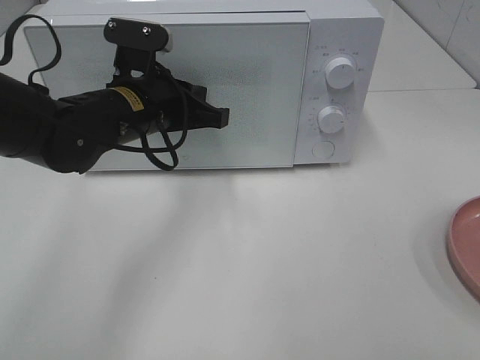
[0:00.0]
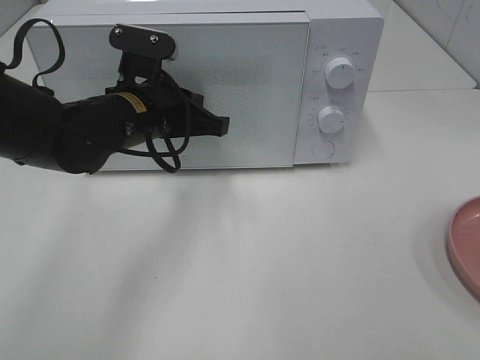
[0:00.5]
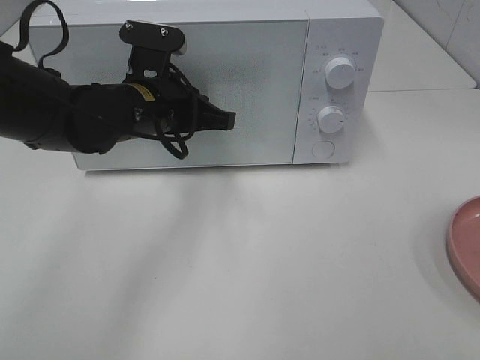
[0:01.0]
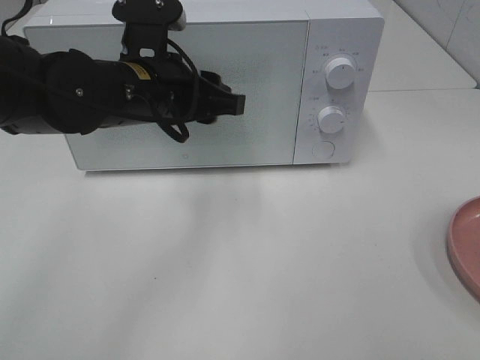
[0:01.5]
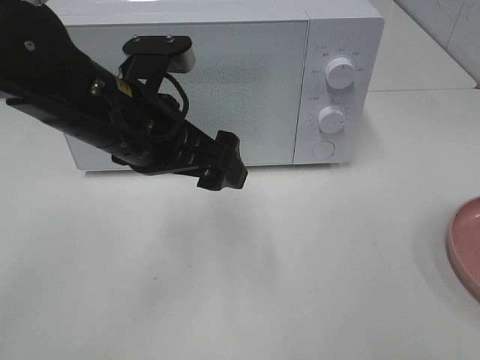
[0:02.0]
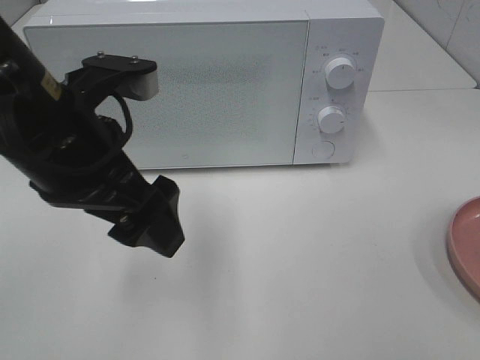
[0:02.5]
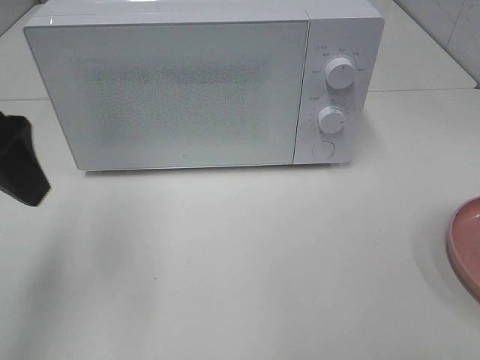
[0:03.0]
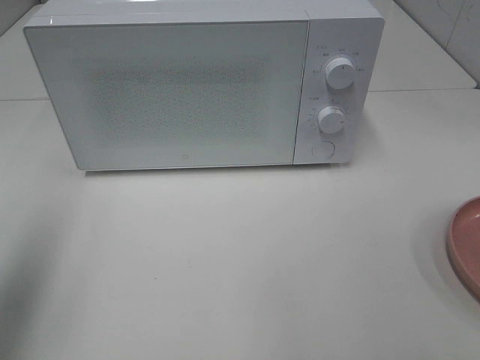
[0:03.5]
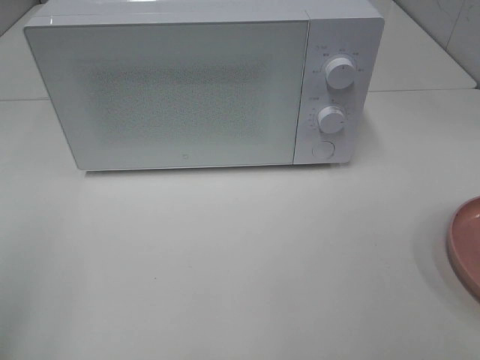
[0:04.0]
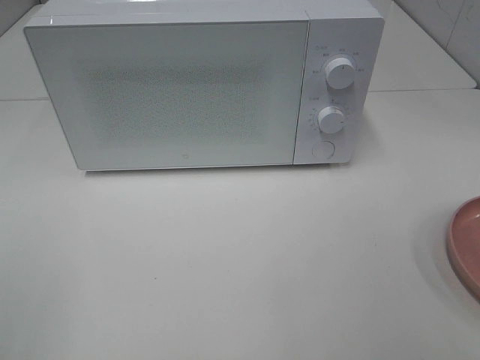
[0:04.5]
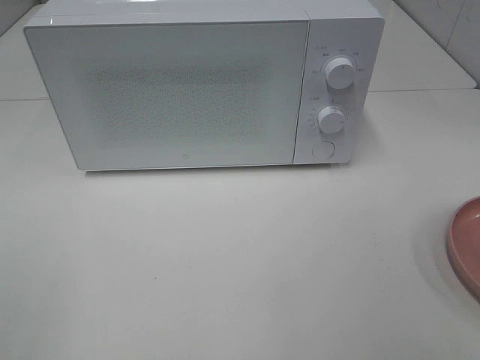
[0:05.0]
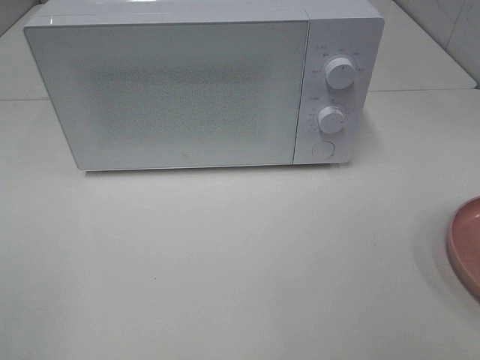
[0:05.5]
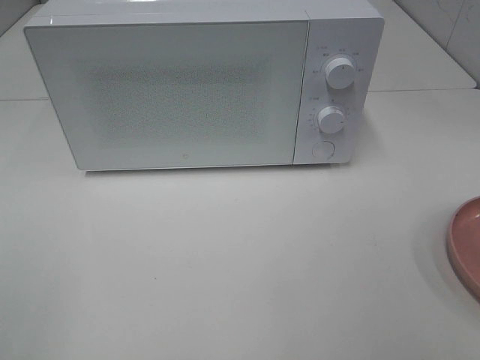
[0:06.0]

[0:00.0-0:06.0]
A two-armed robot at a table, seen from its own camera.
Task of the whole recording: Heat the burger.
0:00.0 to 0:02.0: The left gripper travels backward by roughly 10 cm, and opens its fingers.
0:02.0 to 0:04.0: The left gripper shifts about 30 cm to the left and backward.
